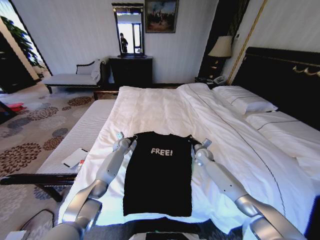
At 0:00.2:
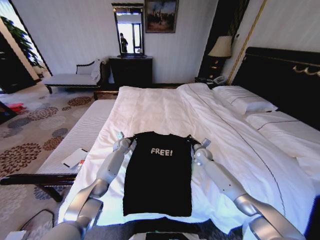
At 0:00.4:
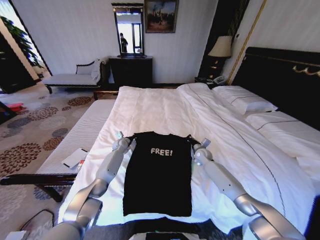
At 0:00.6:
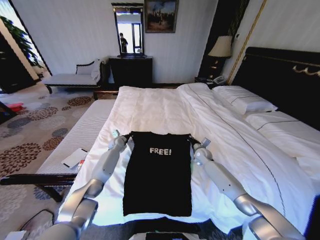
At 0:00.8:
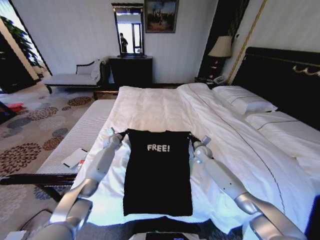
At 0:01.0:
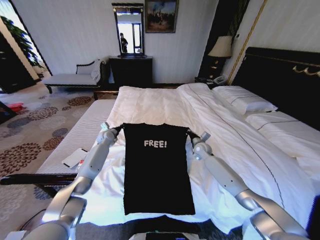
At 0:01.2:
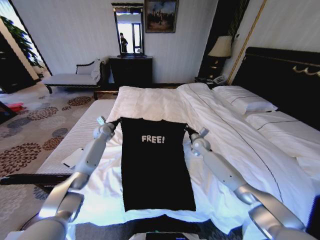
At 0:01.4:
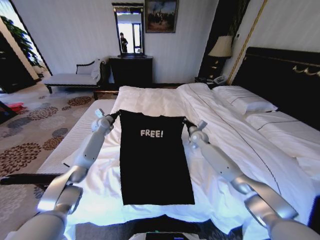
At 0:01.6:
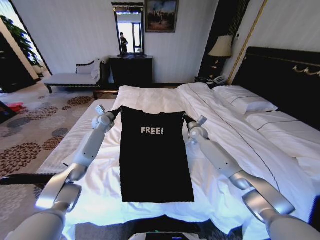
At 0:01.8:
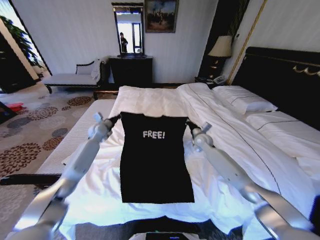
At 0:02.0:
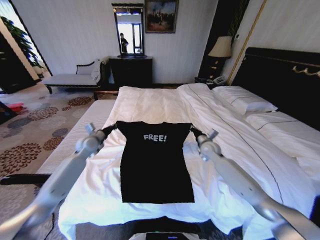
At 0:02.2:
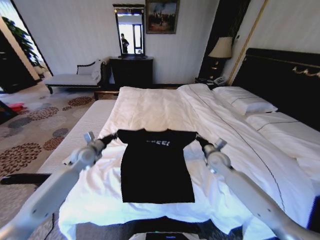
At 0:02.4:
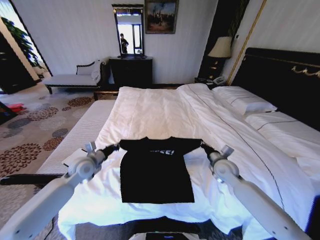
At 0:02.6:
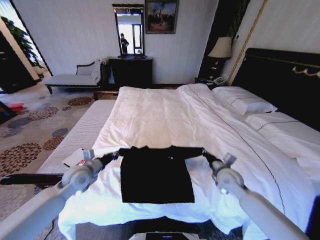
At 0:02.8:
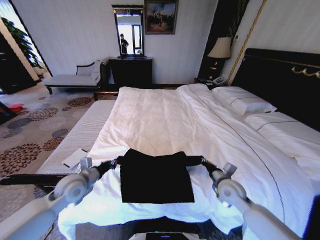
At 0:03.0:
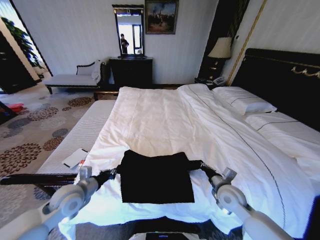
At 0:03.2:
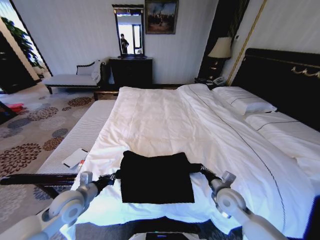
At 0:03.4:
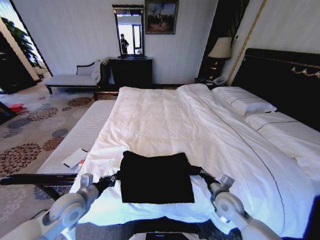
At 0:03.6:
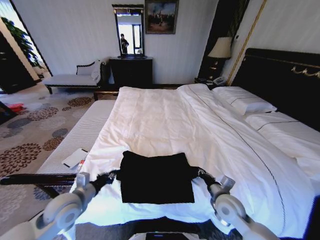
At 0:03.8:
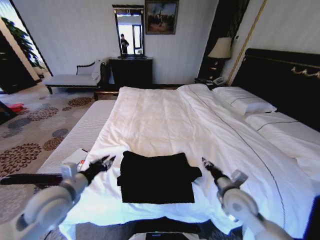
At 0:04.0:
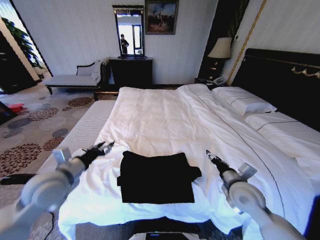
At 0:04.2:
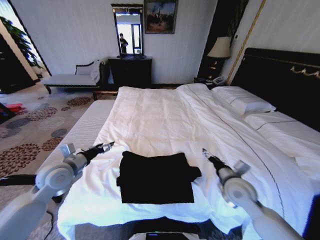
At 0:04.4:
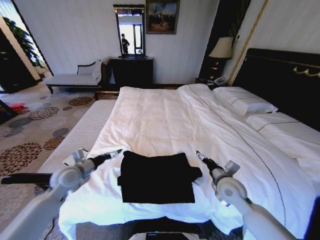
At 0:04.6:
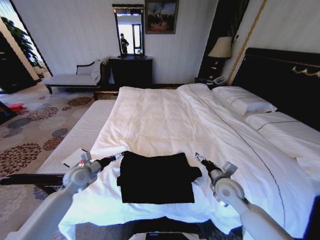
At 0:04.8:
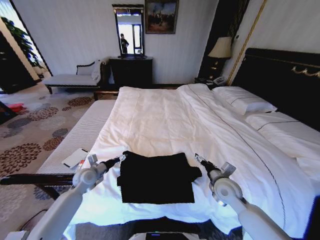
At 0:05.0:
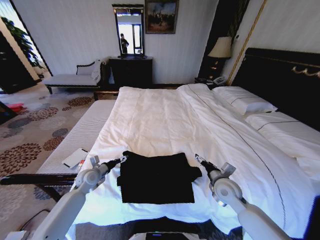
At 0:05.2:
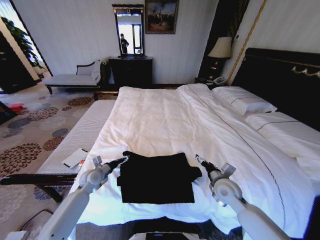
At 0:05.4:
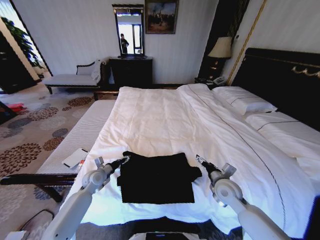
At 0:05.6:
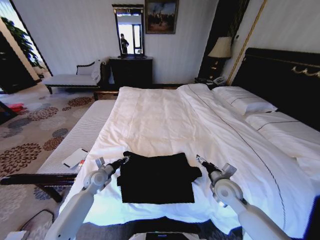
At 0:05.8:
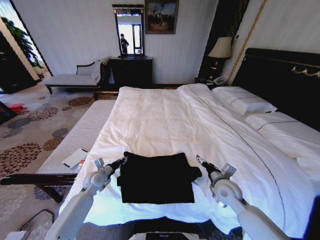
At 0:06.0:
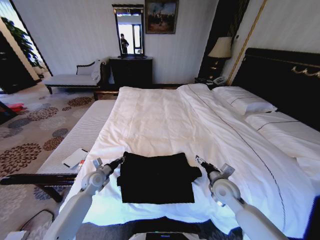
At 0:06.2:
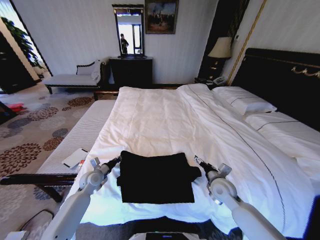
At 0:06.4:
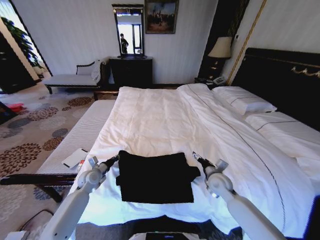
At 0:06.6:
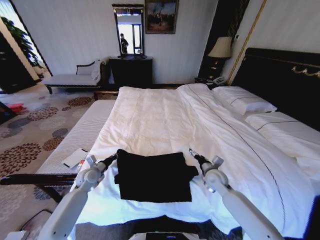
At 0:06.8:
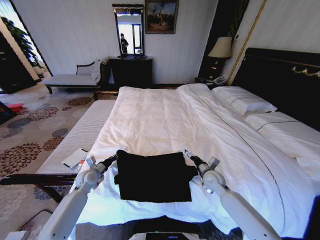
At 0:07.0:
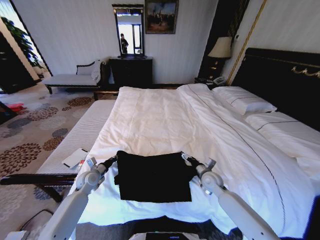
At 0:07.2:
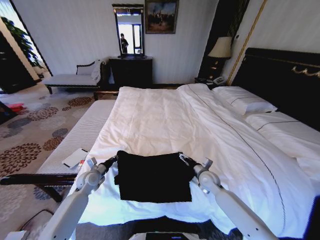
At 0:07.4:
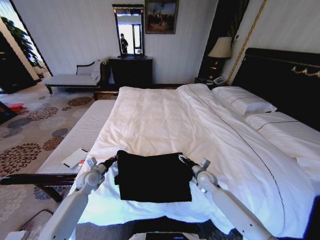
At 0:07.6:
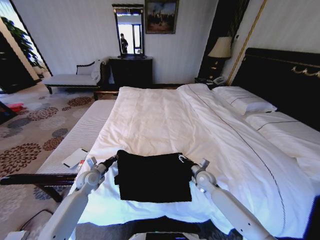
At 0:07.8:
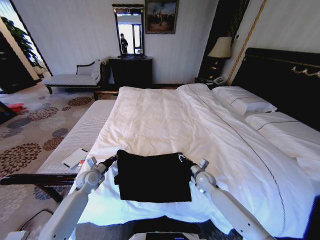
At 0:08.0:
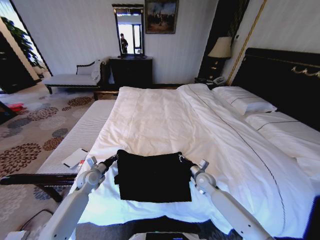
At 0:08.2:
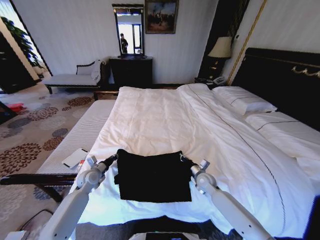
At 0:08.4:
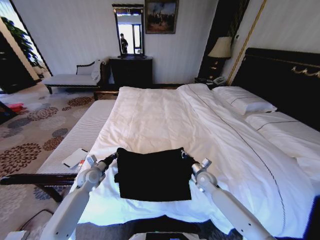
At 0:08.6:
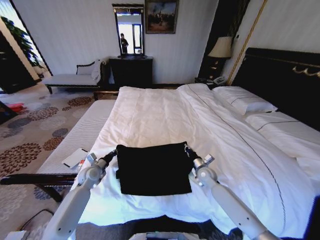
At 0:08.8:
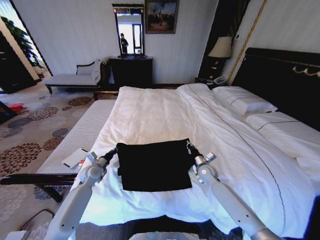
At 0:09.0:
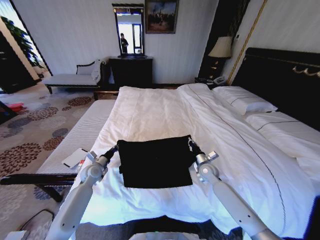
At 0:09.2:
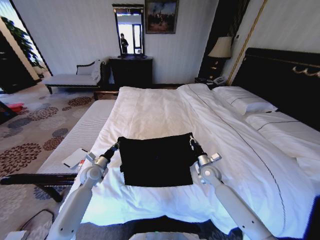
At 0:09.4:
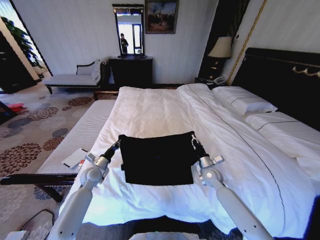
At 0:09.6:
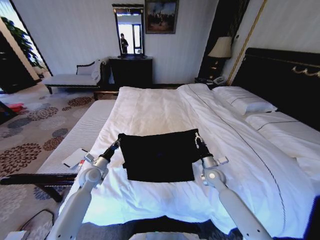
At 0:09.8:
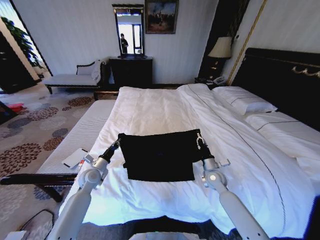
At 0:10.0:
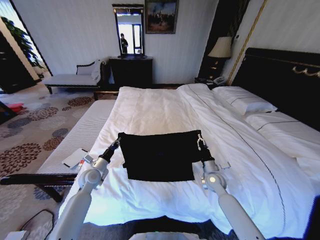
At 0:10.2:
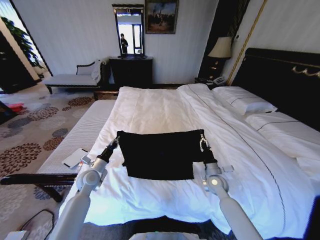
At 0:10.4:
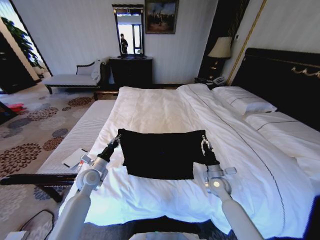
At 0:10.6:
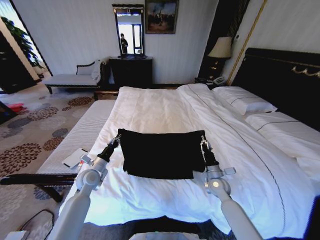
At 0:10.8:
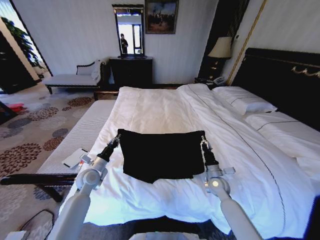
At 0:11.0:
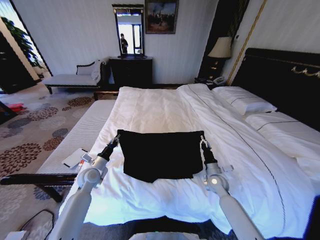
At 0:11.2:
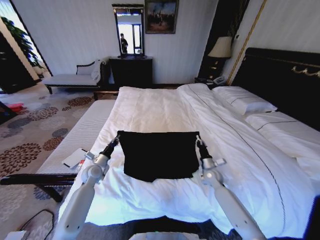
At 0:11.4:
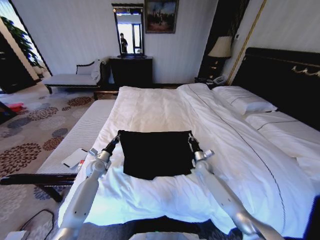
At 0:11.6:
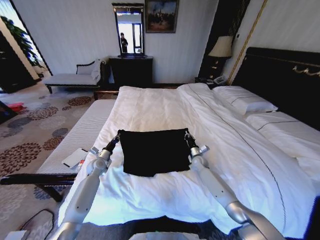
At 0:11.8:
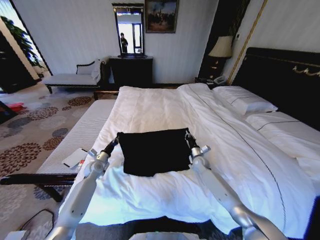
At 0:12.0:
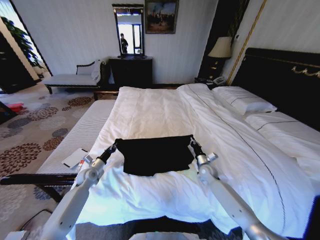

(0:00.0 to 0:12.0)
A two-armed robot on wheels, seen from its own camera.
Task of the whole recording: Fold the clothes on the bed.
0:00.0 - 0:01.6: The left gripper heads upward and to the left, covering approximately 20 cm; the right gripper travels upward and forward by some 15 cm.
0:01.6 - 0:03.0: Both grippers move backward, approximately 35 cm.
0:03.0 - 0:04.4: The left gripper shifts approximately 5 cm forward, travels upward and back again, approximately 10 cm each way, and opens its fingers, while the right gripper opens up.
0:04.4 - 0:06.0: The left gripper moves downward, about 15 cm, and closes up.
0:06.0 - 0:07.6: The right gripper heads downward and forward, covering approximately 10 cm, and closes its fingers.
0:07.6 - 0:09.0: The right gripper closes.
0:09.0 - 0:10.4: The left gripper moves roughly 5 cm, while the right gripper is displaced backward by approximately 5 cm.
0:10.4 - 0:12.0: The right gripper shifts some 10 cm forward. The left gripper shifts about 10 cm downward and to the left.

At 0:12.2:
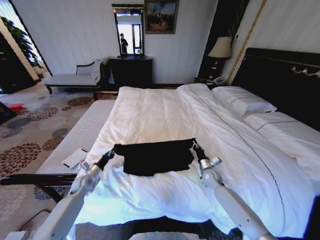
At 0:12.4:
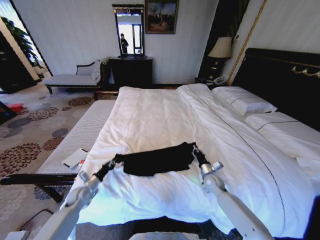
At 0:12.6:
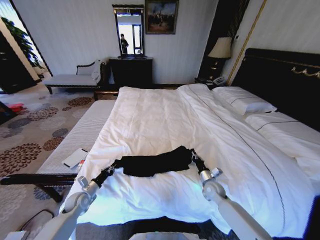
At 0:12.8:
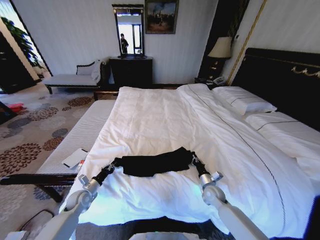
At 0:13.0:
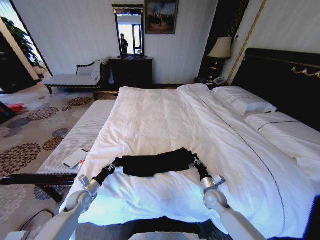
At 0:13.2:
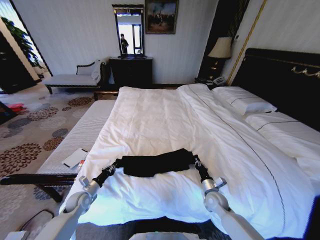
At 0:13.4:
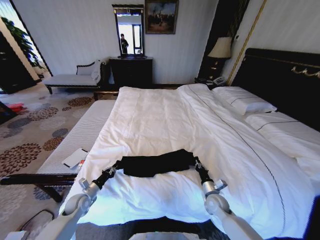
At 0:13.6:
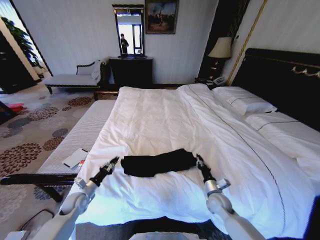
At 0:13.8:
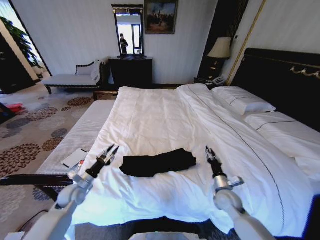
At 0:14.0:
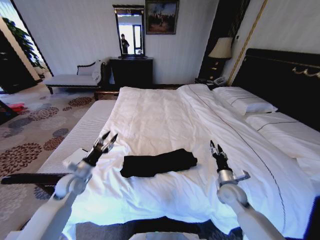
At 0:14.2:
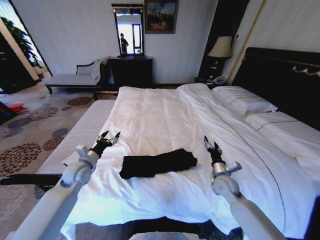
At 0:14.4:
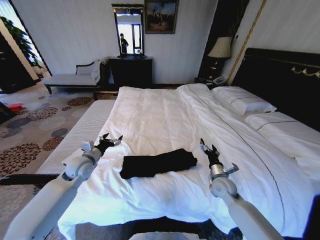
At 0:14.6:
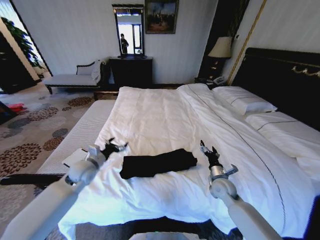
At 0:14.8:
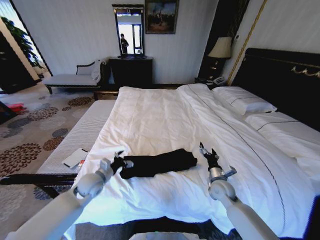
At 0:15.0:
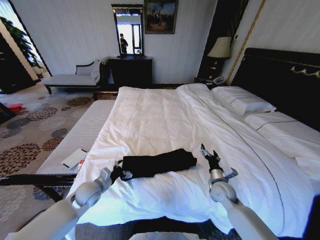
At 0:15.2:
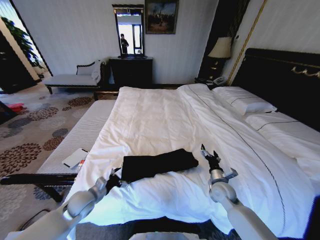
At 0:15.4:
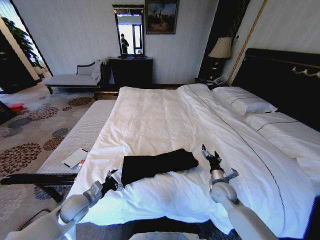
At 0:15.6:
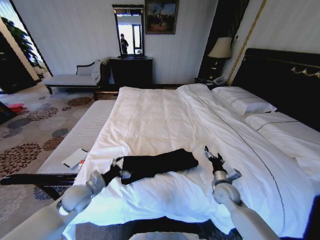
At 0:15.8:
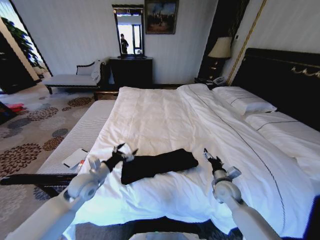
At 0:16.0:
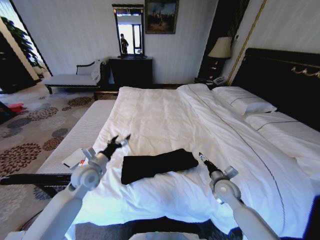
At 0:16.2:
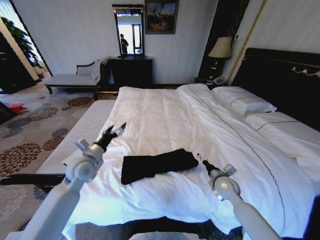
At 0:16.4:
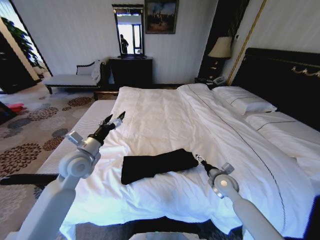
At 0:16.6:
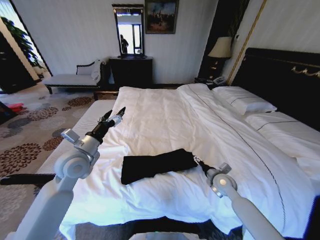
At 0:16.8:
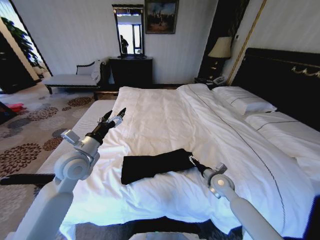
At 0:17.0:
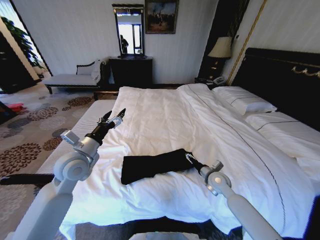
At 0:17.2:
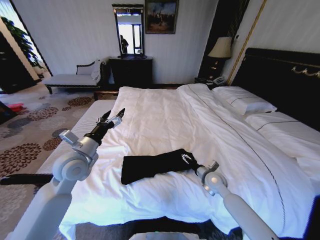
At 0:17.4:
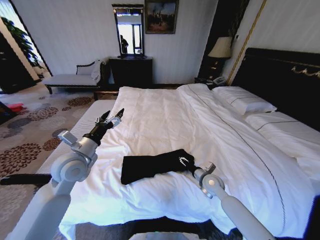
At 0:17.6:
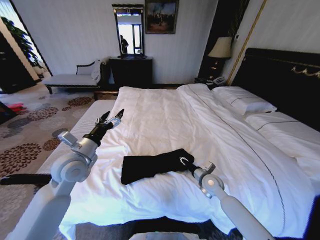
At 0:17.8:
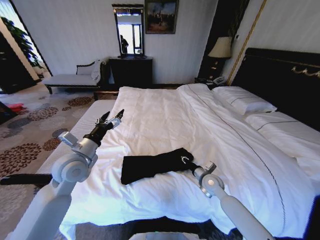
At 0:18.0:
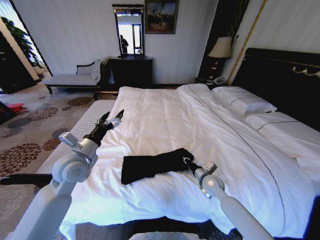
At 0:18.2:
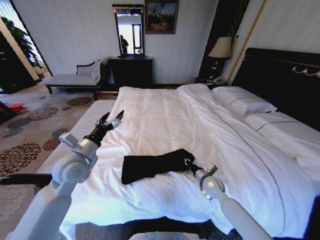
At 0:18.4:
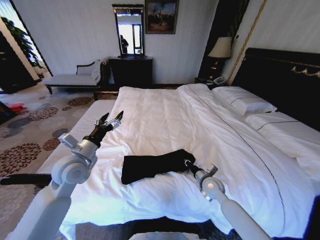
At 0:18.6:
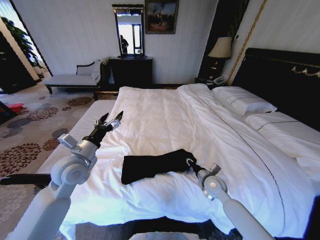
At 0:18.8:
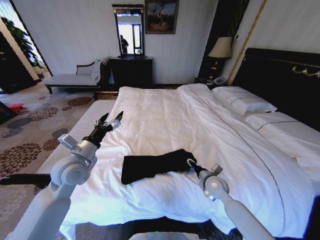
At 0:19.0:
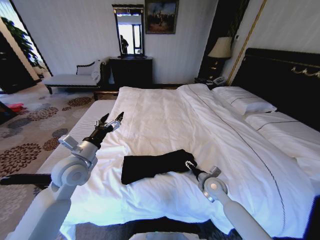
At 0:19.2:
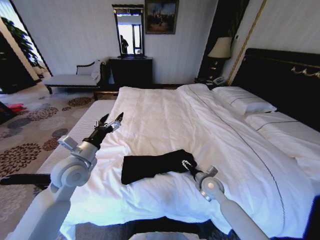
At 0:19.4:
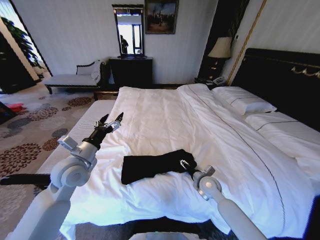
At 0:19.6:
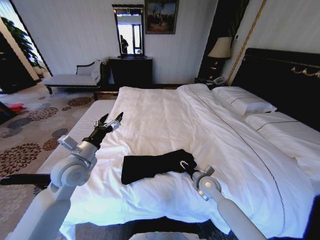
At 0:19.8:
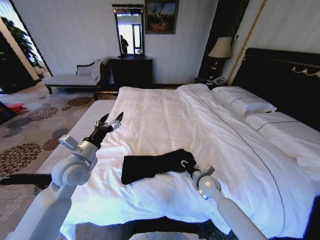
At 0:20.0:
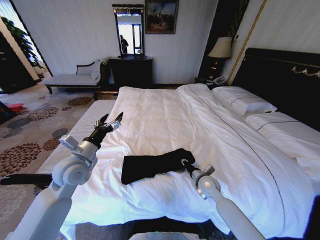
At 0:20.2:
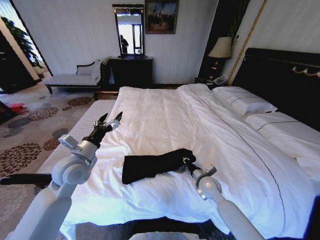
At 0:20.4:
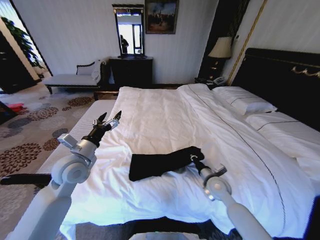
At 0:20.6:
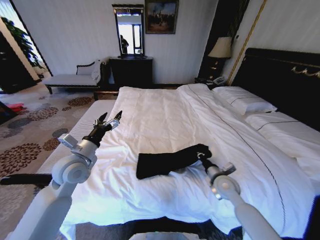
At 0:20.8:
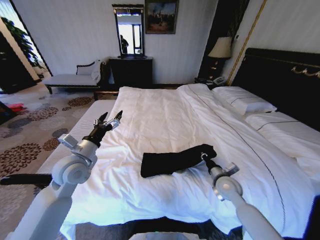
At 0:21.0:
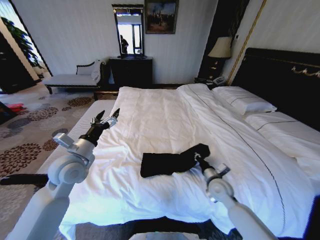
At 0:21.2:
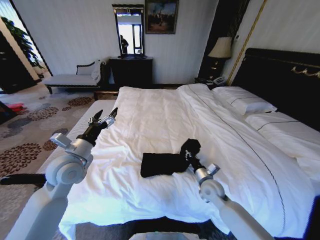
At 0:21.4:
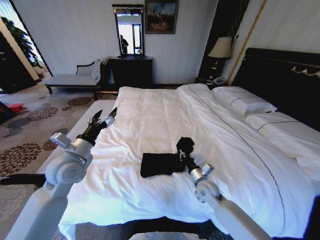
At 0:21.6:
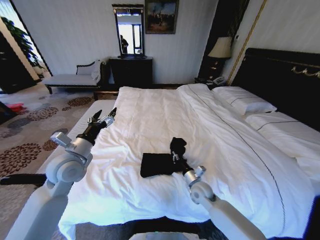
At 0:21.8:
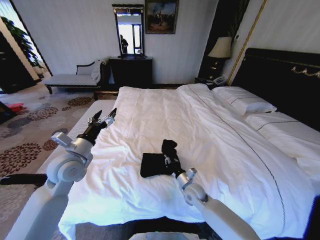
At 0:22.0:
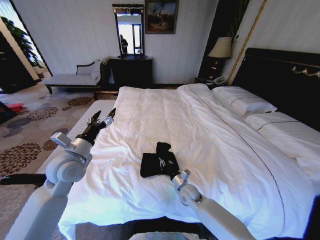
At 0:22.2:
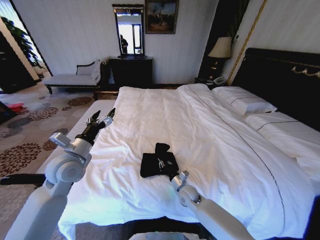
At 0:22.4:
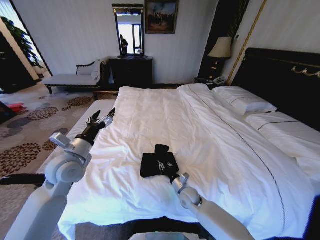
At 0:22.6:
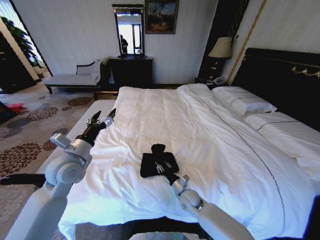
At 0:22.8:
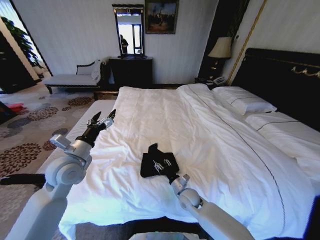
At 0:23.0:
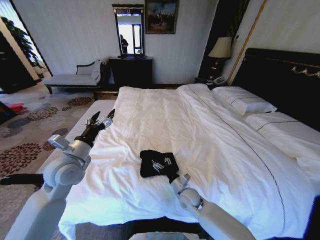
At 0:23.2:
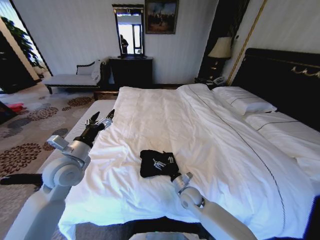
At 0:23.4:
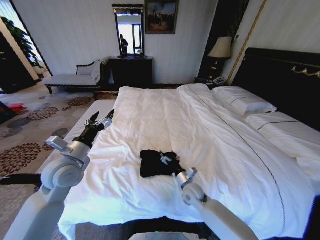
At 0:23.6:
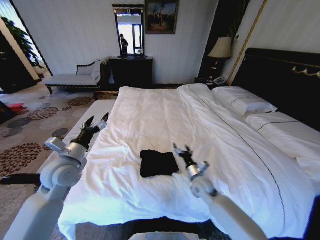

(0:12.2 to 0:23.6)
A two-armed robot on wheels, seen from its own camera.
Task of the whole recording: Fold the clothes on the bed.
0:12.2 - 0:13.6: The grippers both shift backward by about 10 cm.
0:13.6 - 0:15.0: The right gripper goes some 5 cm upward, and opens. Meanwhile the left gripper shifts some 10 cm to the right and upward, and opens up.
0:15.0 - 0:16.4: The left gripper goes some 15 cm upward.
0:16.4 - 0:17.8: The right gripper shifts by some 5 cm, and closes up.
0:17.8 - 0:19.4: The right gripper opens up.
0:19.4 - 0:20.8: The right gripper travels to the right by about 5 cm, and closes its fingers.
0:20.8 - 0:22.2: The right gripper heads to the left and downward, covering some 20 cm.
0:22.2 - 0:23.6: The right gripper heads upward and to the right, covering some 10 cm, and opens.
